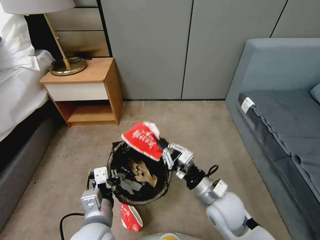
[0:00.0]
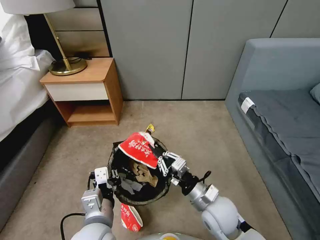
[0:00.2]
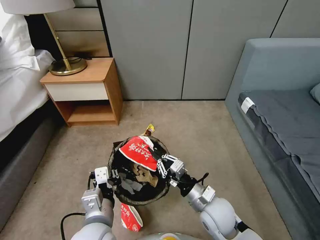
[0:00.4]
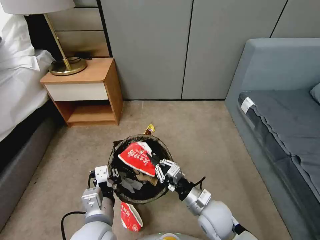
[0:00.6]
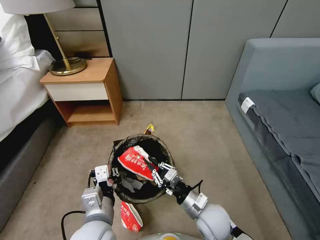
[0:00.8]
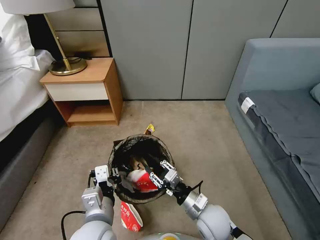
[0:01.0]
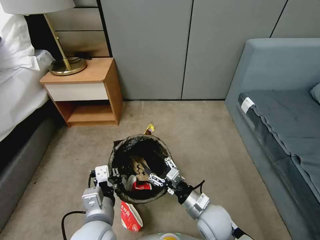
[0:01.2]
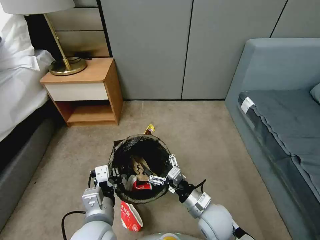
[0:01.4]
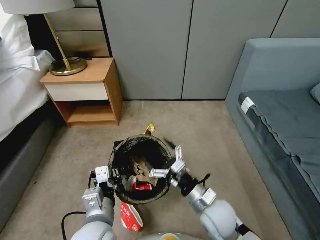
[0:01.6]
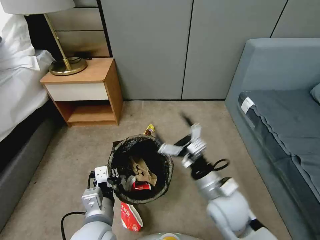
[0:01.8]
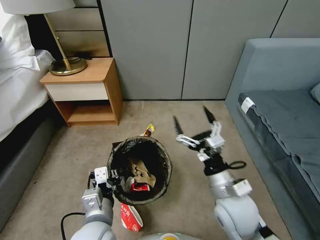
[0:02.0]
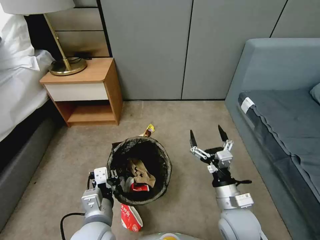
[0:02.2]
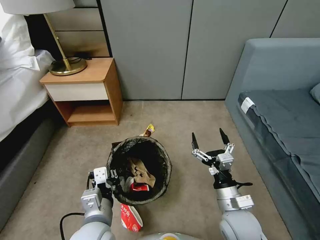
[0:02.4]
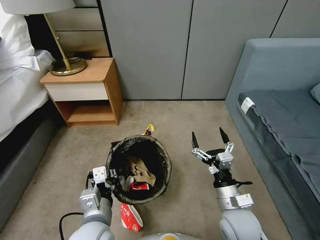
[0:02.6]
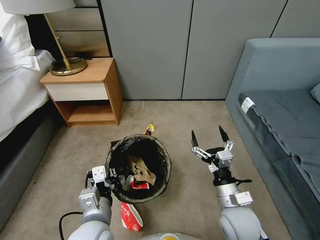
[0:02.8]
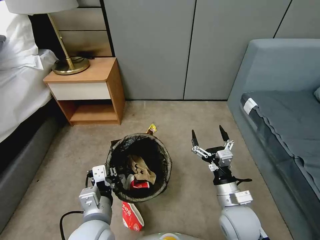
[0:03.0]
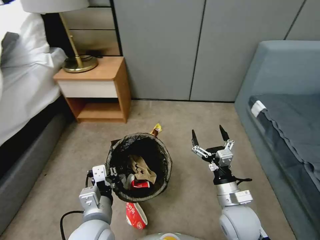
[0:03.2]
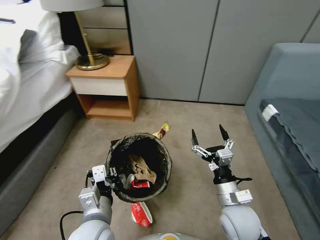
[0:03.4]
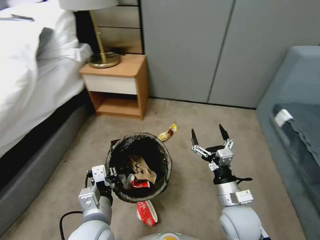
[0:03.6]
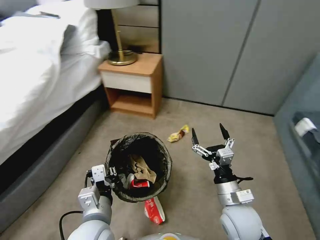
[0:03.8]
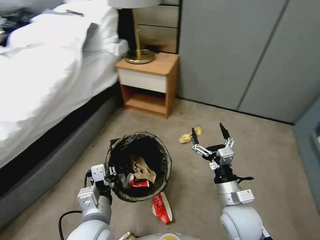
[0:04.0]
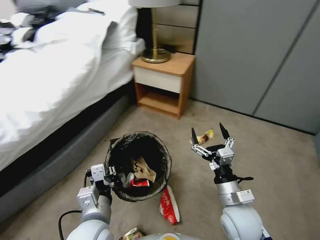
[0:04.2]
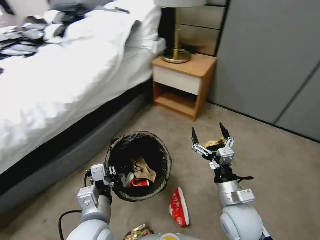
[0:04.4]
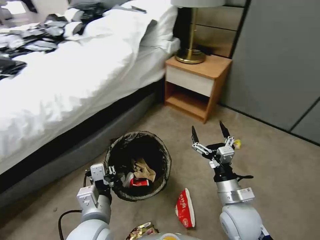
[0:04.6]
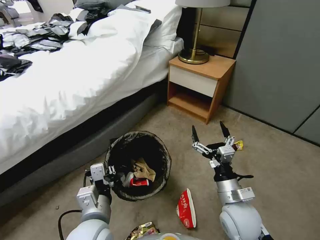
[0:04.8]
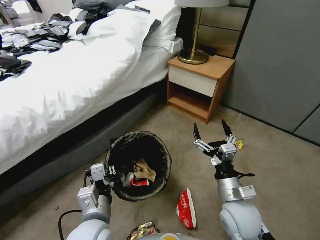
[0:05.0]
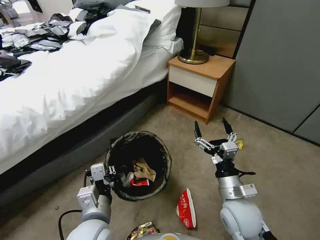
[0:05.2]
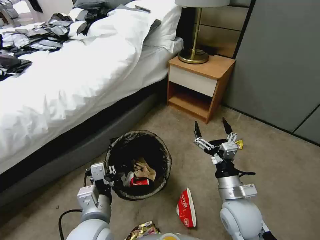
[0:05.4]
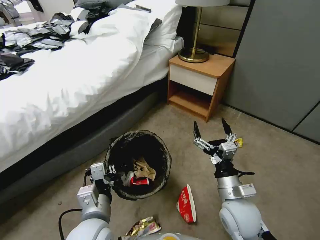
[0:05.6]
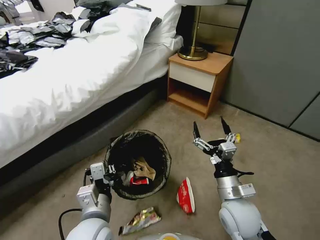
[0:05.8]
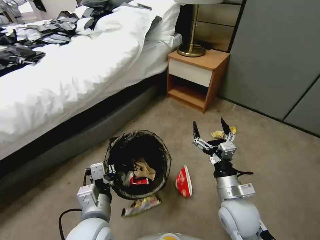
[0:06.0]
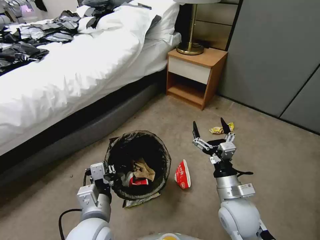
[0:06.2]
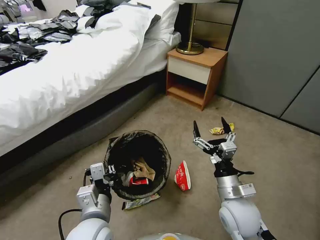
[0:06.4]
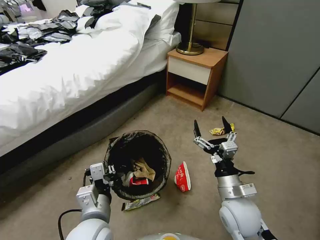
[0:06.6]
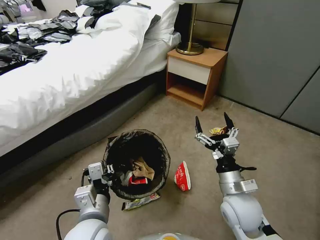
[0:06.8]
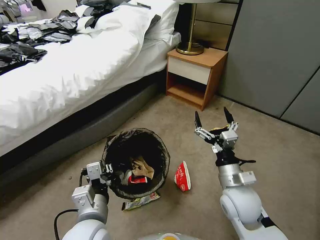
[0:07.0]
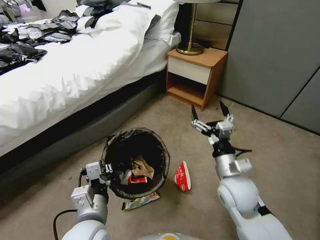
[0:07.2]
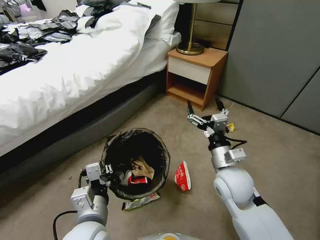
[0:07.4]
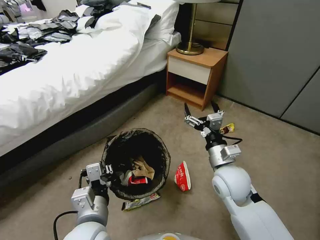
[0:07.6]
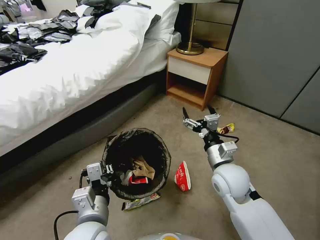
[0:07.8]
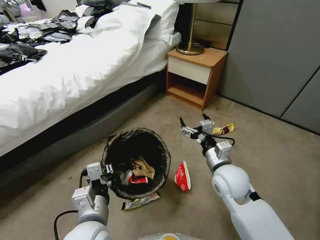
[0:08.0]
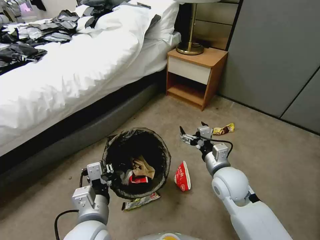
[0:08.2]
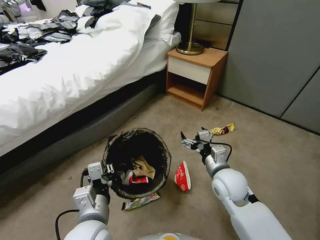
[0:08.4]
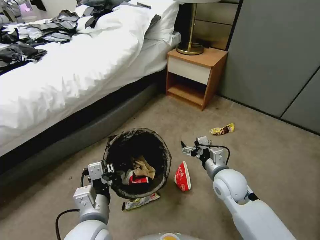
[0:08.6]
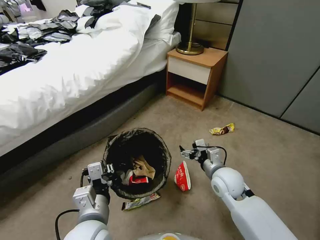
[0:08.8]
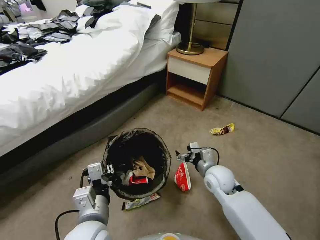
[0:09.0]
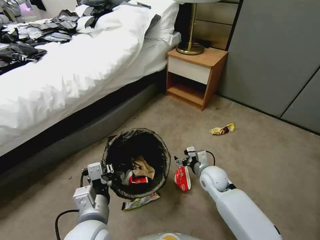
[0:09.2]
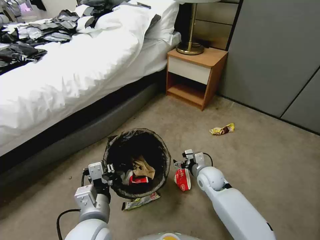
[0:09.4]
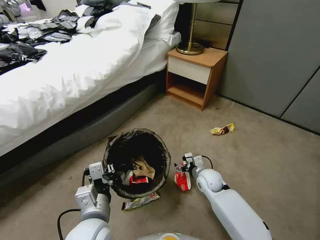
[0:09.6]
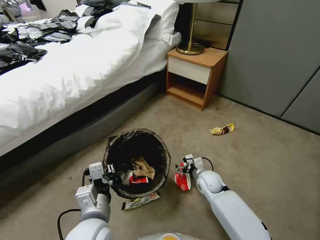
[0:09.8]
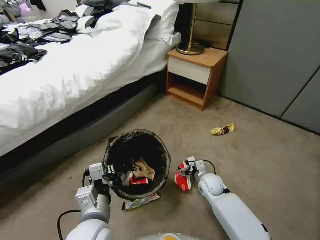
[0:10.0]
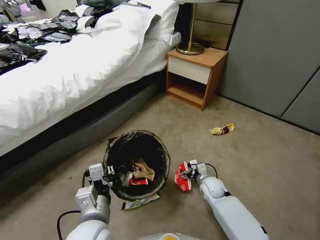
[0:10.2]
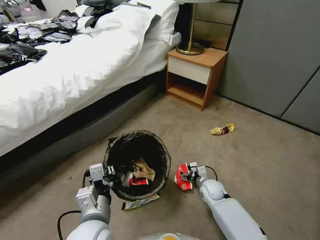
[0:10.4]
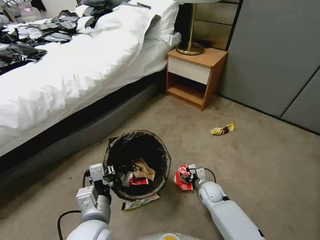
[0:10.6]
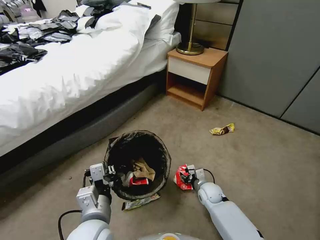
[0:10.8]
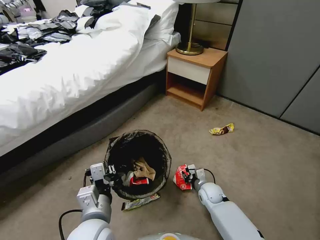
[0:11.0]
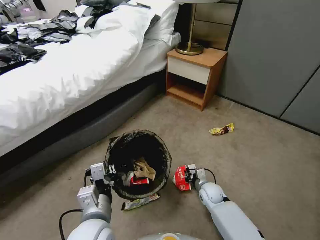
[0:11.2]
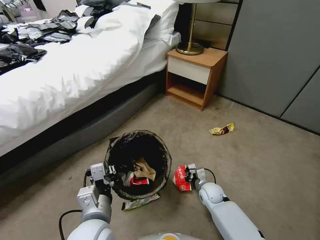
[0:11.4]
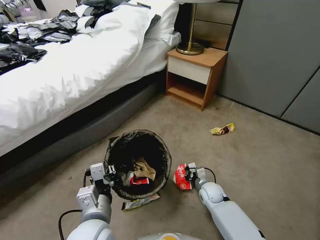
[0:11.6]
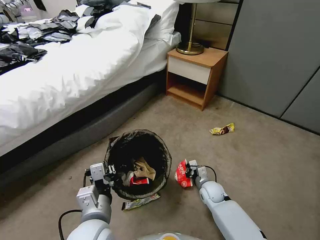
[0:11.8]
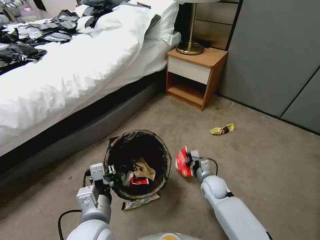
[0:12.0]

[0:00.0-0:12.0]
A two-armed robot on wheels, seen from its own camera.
Task of the whole recording: Pick up the trash bin, then pick up the garbage from the floor and place it into the trash bin.
0:00.0 to 0:01.6: The right gripper moves downward, roughly 5 cm, and opens up.
0:01.6 to 0:03.0: The right gripper is displaced to the right by roughly 5 cm, and reaches about 10 cm upward, then returns.
0:06.0 to 0:07.6: The right gripper moves forward, approximately 5 cm.
0:07.6 to 0:09.0: The right gripper goes about 10 cm downward.
0:09.0 to 0:10.4: The right gripper travels downward by about 15 cm.
0:10.4 to 0:12.0: The right gripper closes.

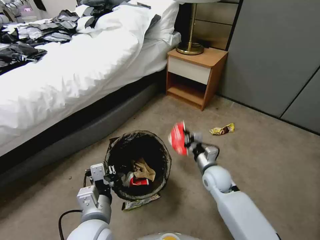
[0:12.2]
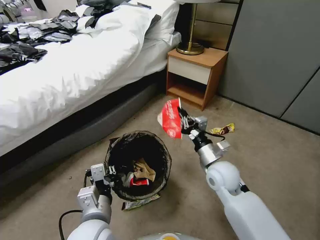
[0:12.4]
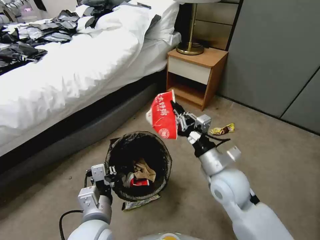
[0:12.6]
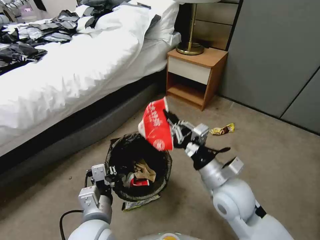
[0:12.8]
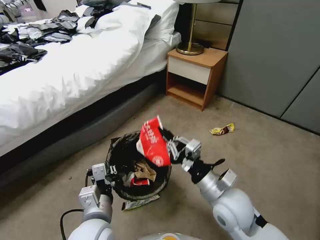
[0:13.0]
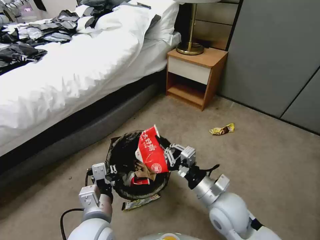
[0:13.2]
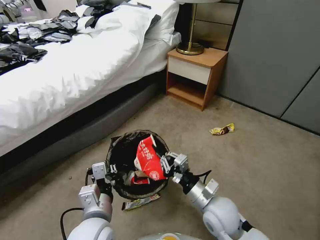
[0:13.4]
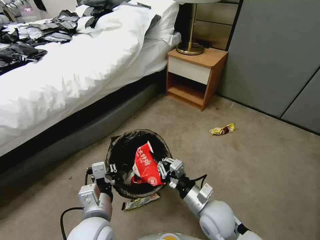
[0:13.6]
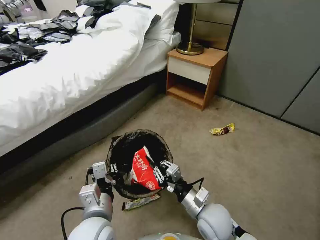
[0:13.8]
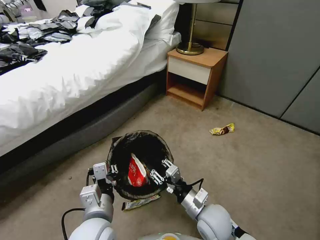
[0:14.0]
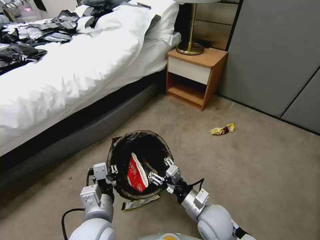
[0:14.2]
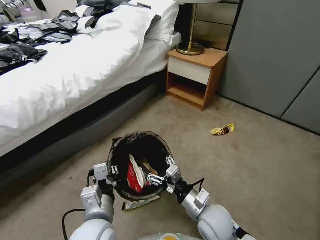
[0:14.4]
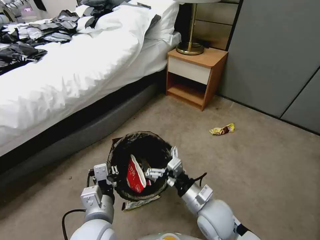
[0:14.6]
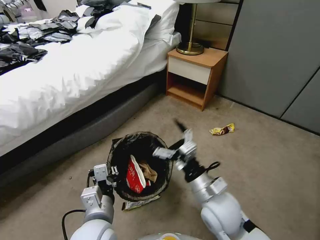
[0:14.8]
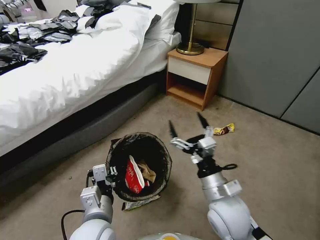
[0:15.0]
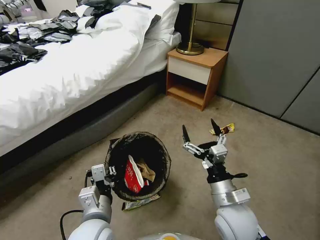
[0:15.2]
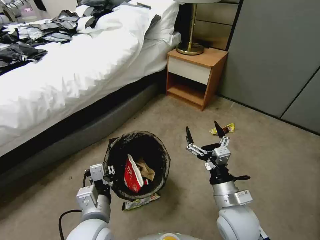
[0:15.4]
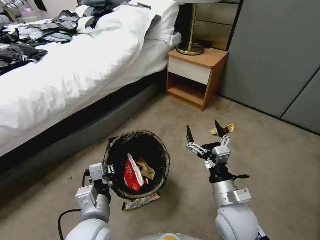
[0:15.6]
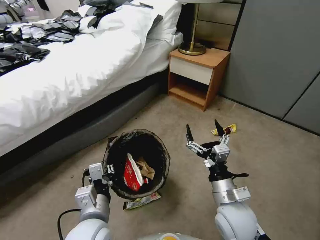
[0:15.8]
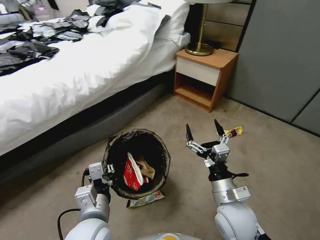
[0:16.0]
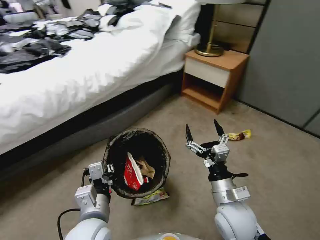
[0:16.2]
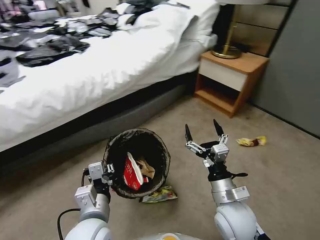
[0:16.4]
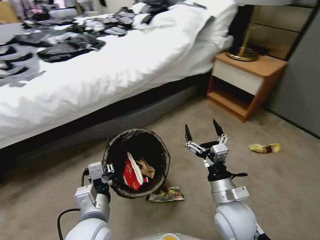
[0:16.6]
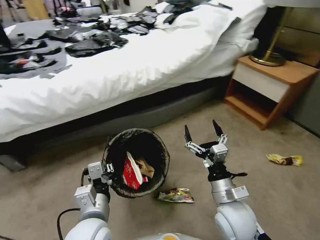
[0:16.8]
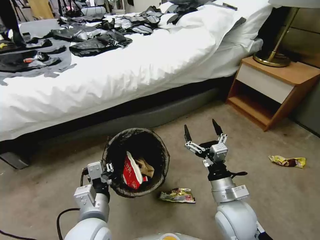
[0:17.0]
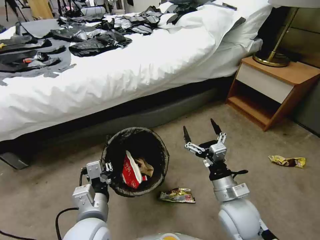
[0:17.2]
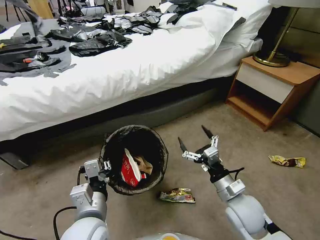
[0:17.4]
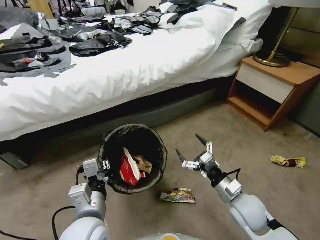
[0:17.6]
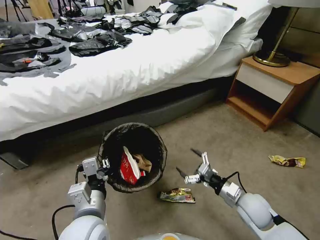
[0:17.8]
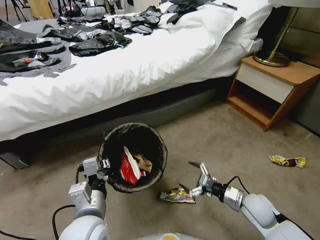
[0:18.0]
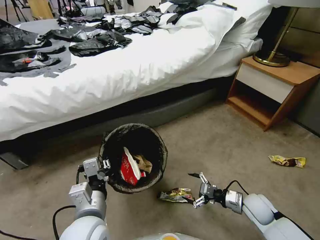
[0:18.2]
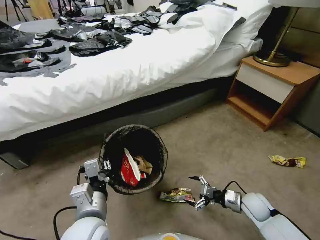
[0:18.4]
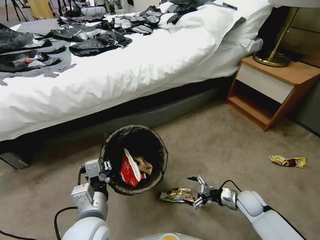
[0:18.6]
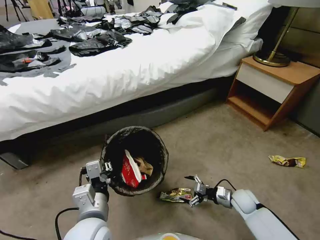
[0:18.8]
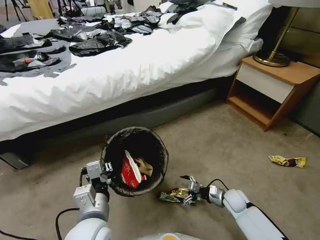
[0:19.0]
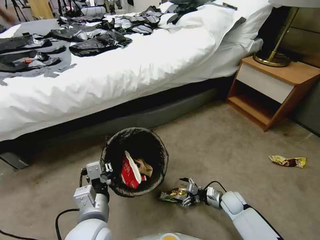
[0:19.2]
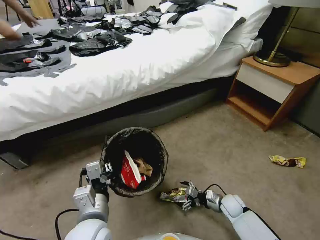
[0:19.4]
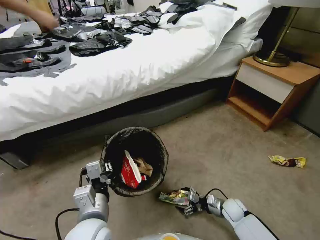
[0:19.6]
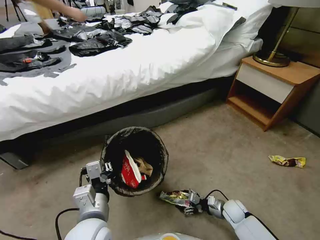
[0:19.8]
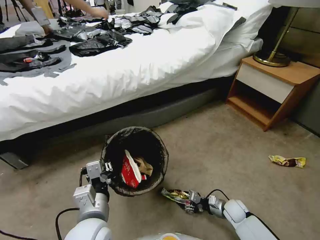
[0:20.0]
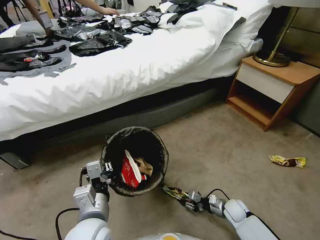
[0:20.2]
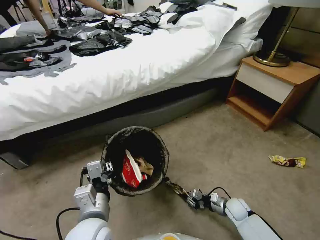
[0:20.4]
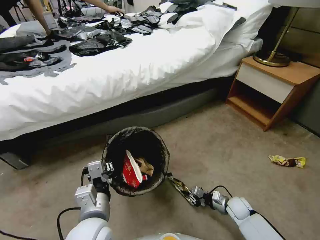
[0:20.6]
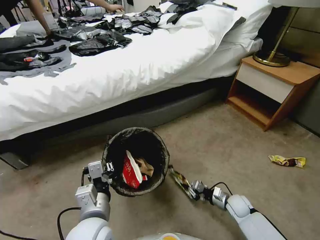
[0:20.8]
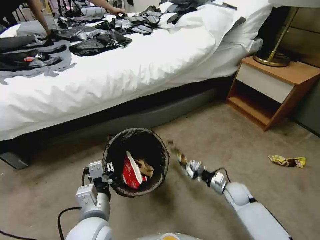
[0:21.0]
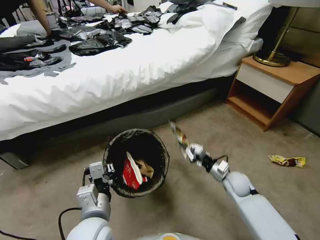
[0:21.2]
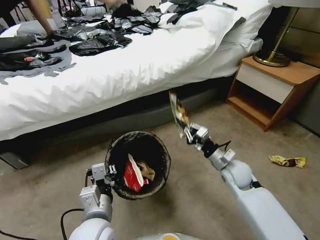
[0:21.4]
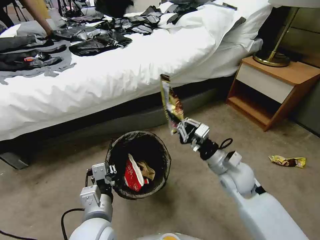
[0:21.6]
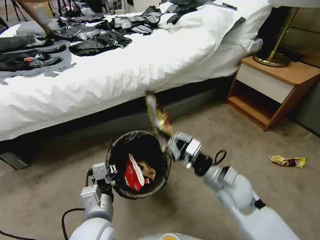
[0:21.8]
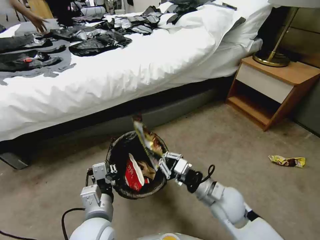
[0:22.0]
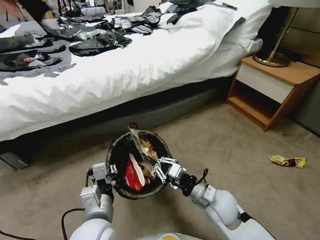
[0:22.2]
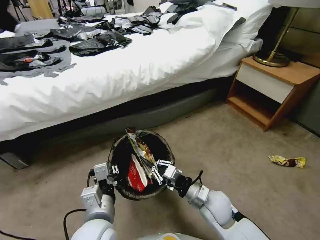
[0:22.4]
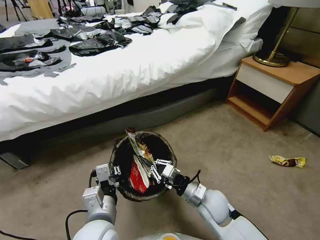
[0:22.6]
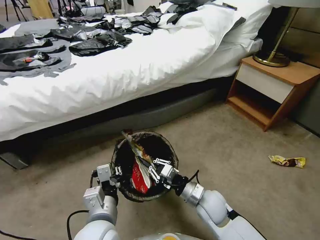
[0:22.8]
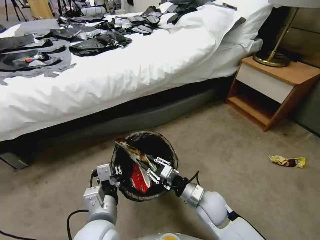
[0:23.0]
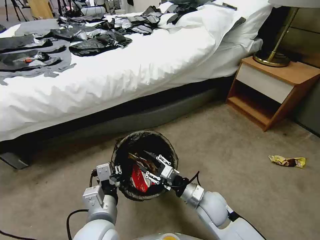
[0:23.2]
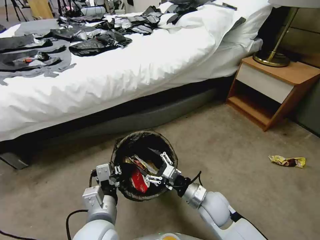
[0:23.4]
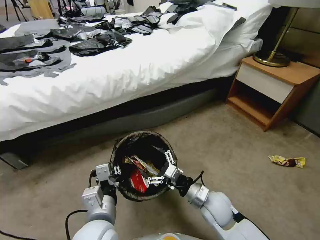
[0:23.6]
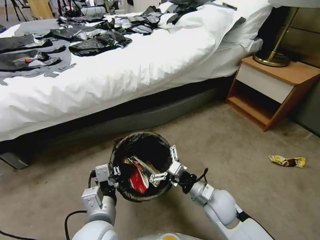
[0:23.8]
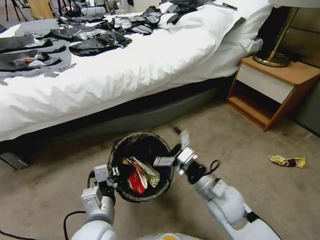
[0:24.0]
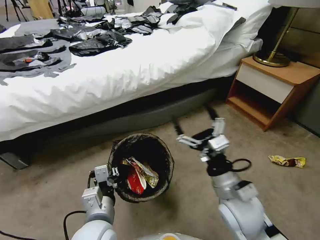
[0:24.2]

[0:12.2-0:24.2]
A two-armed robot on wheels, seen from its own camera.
Task of the whole recording: Pick up the trash bin, then pick up the garbage from the floor and place it into the trash bin.
0:12.2 to 0:13.8: The right gripper shifts about 15 cm backward, and goes upward and returns, some 15 cm each way.
0:13.8 to 0:15.2: The right gripper goes about 5 cm upward, and opens up.
0:16.6 to 0:18.2: The right gripper goes approximately 20 cm to the right and downward.
0:18.2 to 0:19.8: The right gripper heads downward, covering approximately 15 cm.
0:19.8 to 0:21.2: The right gripper travels upward and forward by roughly 15 cm, and closes up.
0:21.2 to 0:22.6: The right gripper travels to the left and backward by some 15 cm, and moves roughly 15 cm upward and comes back.
0:22.6 to 0:24.2: The right gripper is displaced upward by roughly 15 cm, and opens up.
